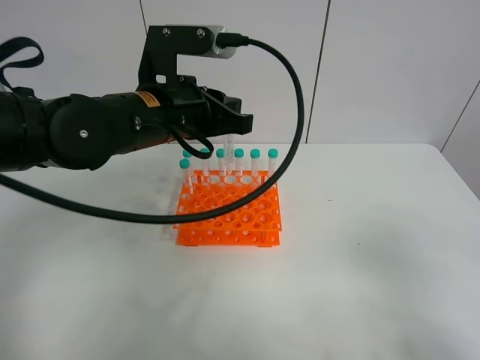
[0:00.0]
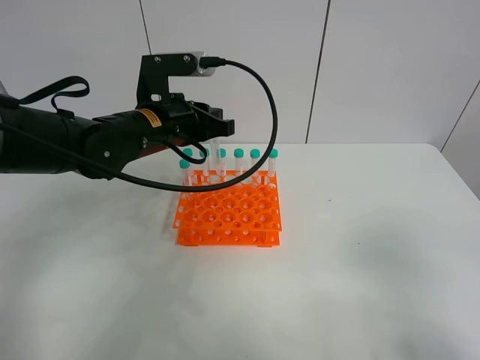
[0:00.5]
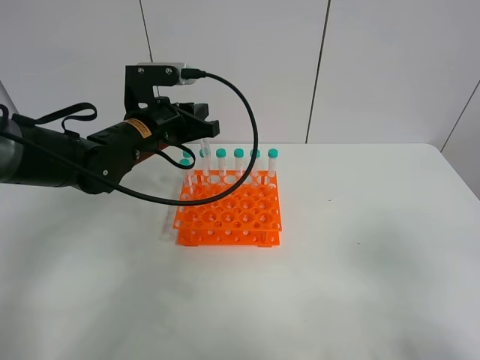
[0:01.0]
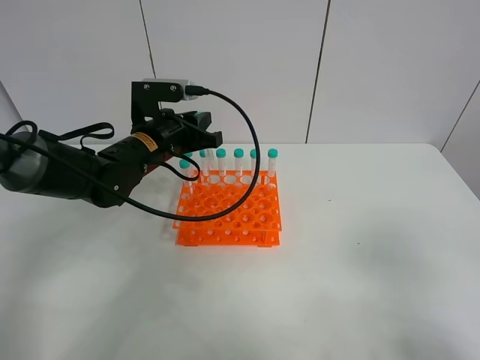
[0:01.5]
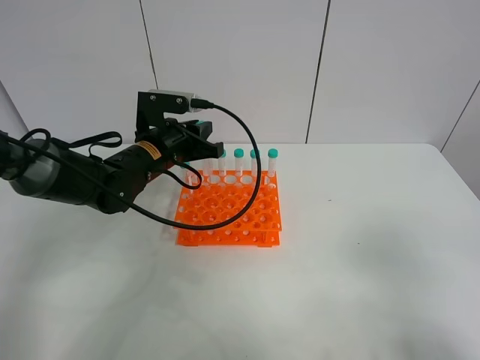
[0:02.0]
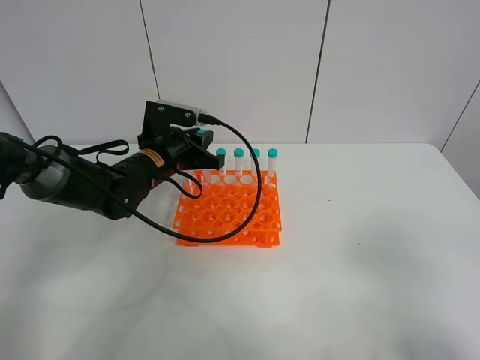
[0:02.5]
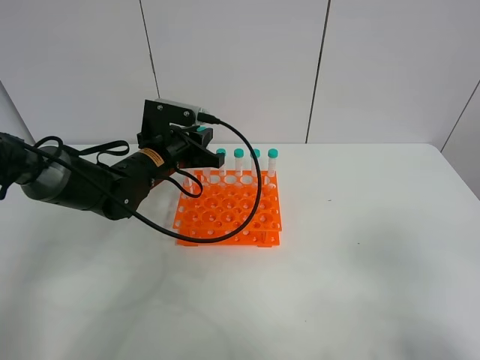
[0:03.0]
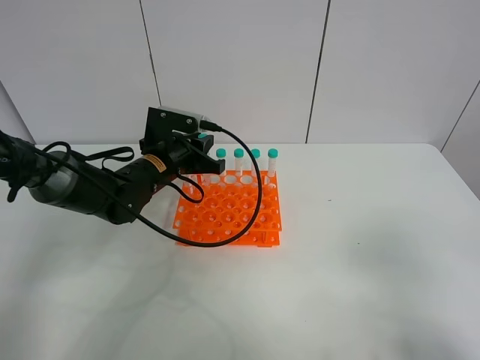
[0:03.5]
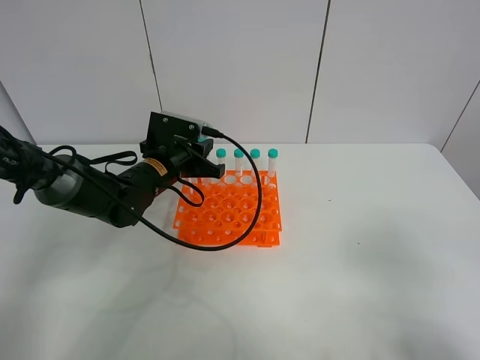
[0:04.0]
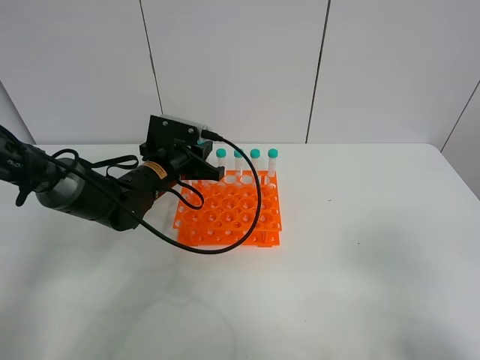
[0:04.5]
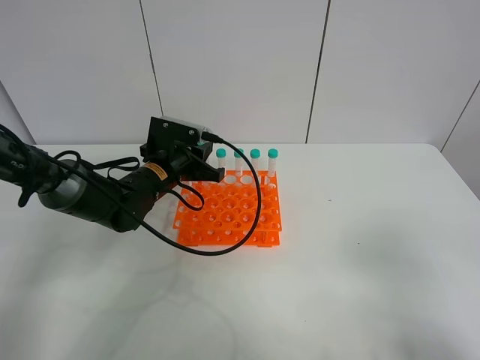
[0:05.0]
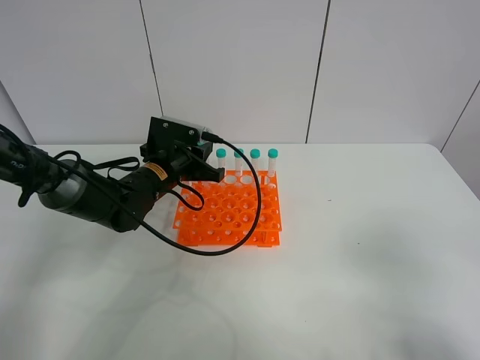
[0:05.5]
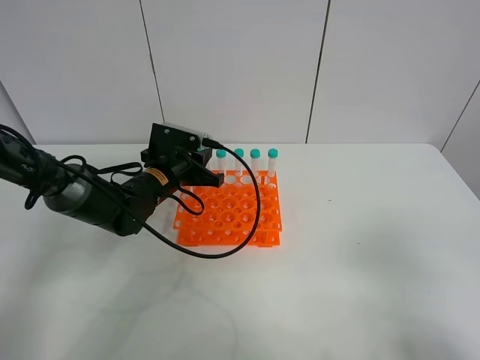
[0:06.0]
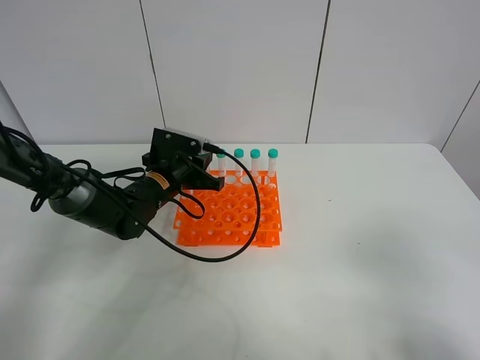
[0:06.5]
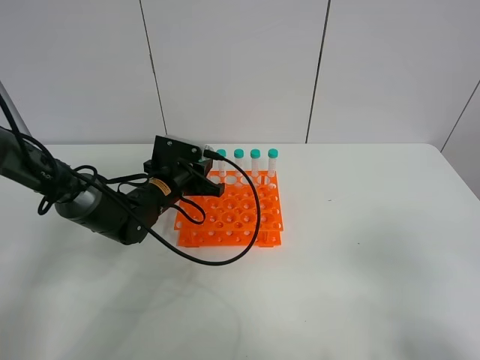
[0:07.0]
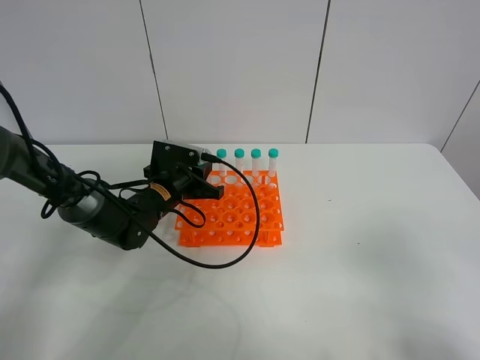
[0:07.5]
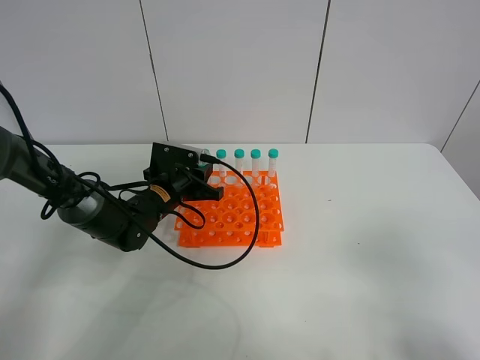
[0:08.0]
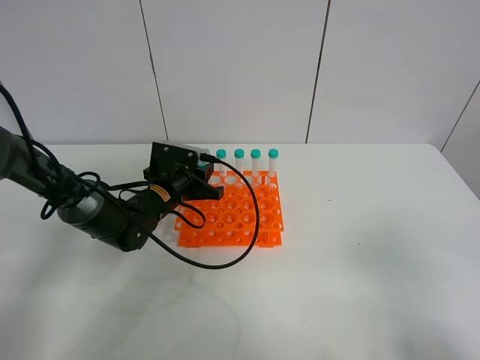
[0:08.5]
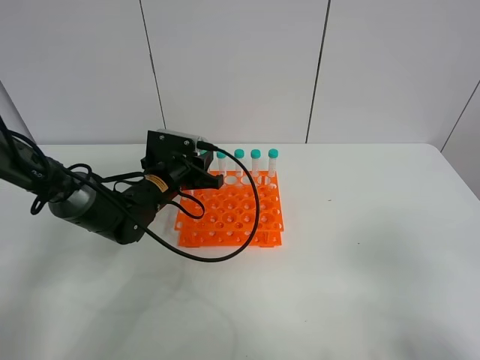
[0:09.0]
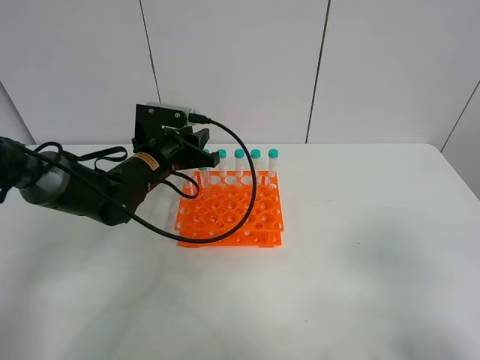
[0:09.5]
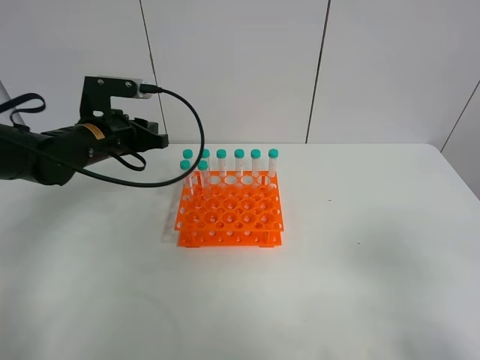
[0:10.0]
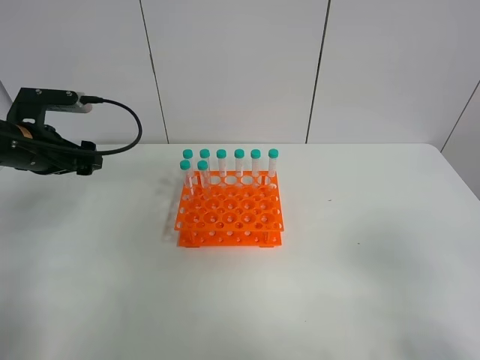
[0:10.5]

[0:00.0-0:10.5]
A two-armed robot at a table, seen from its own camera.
Task of the whole recording: Put the test tube on the table back onto the test tube rack.
Step, 0:00.0 to 0:08.5: Place the test tube on the test tube rack with the left gripper.
0:00.0 to 0:02.0: The left gripper goes roughly 10 cm downward and forward.
0:02.0 to 0:04.0: The grippers stay close to where they were, moving slightly.
0:04.0 to 0:08.5: The grippers stay close to where they were, moving slightly.
0:08.5 to 0:10.5: The left gripper moves to the left and upward, about 20 cm, and opens up.

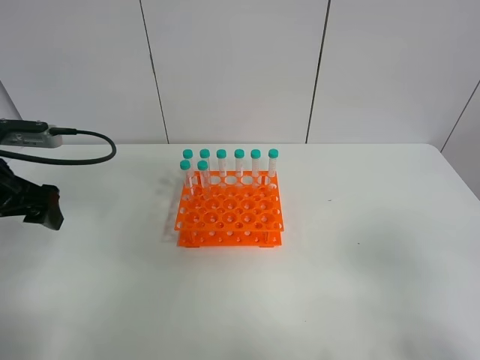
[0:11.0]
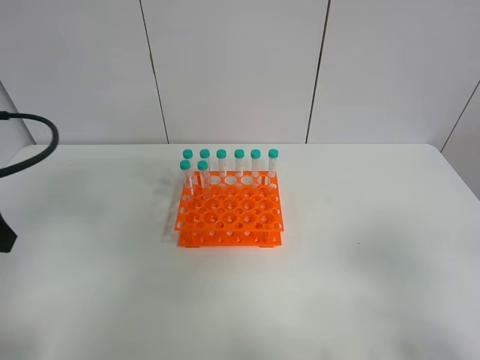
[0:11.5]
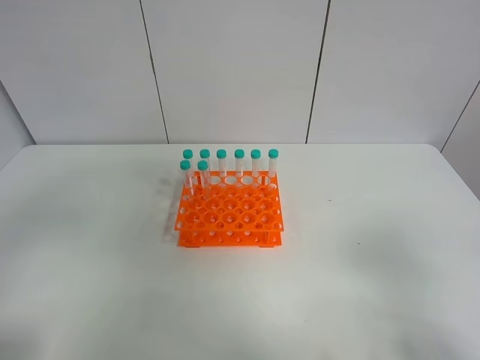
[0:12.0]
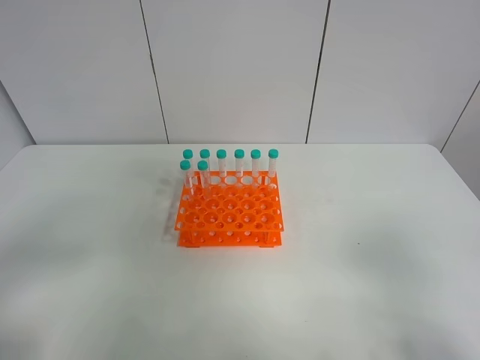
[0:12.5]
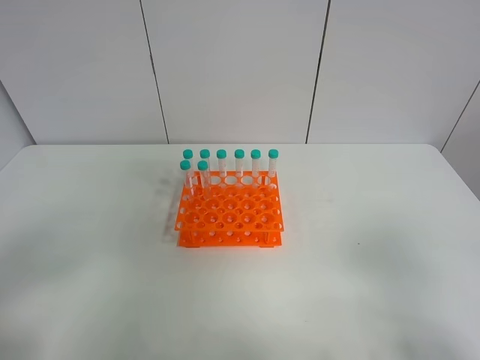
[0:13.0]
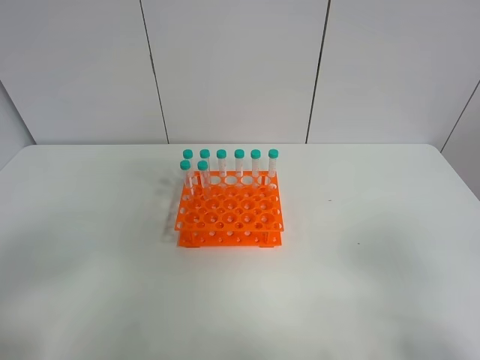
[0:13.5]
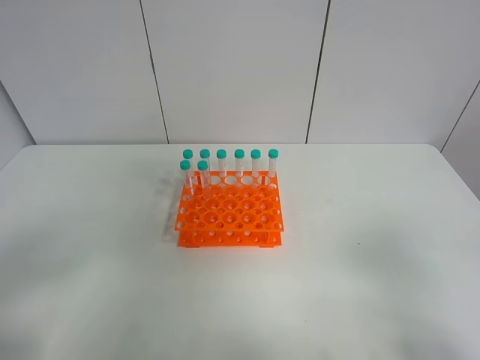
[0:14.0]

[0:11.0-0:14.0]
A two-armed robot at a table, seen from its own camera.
Task of the whole recording: Put the test tube on the table back onto the test tube rack.
0:11.0 to 0:12.5: The left gripper travels backward by approximately 20 cm.

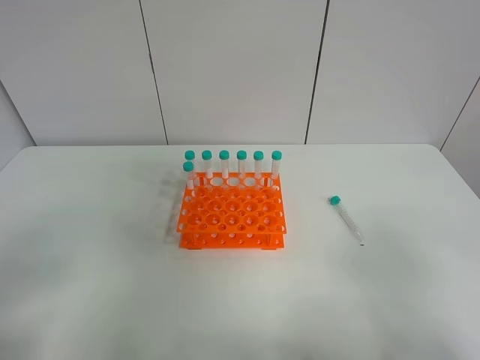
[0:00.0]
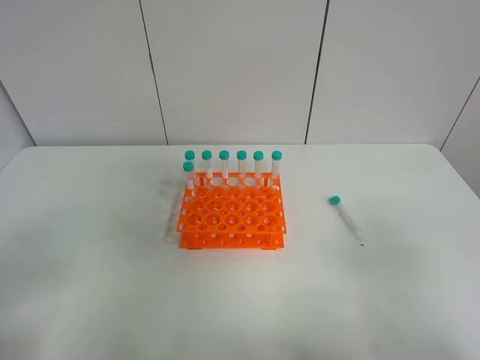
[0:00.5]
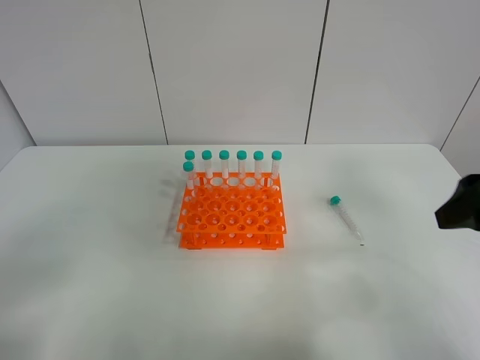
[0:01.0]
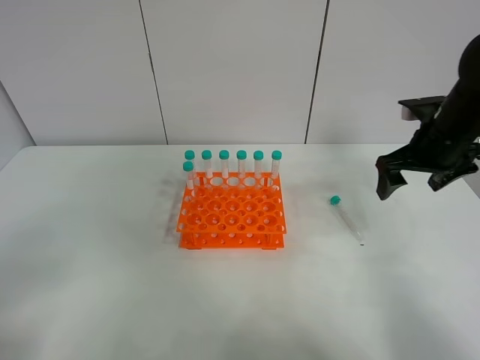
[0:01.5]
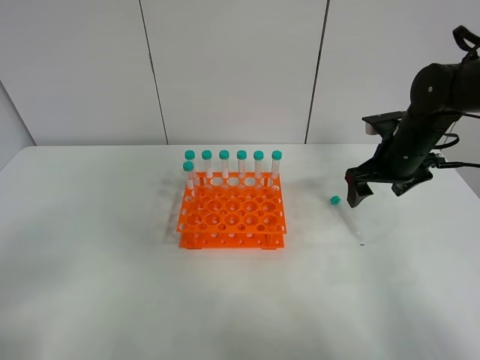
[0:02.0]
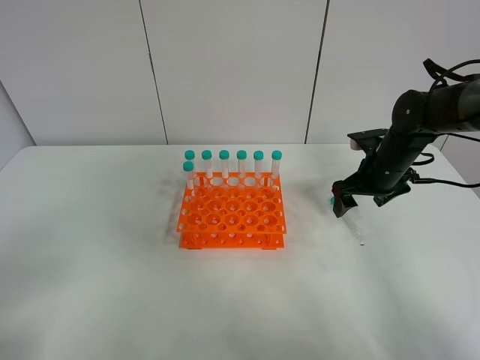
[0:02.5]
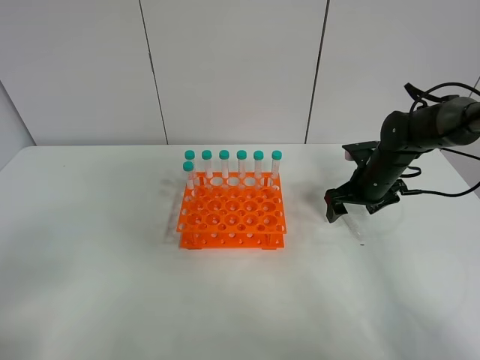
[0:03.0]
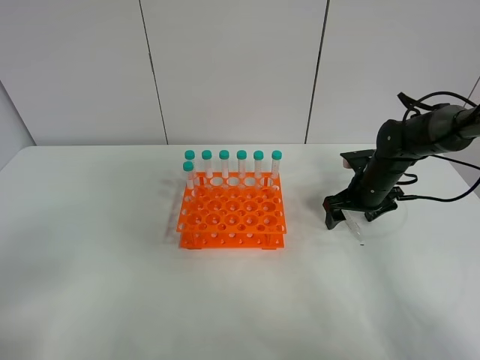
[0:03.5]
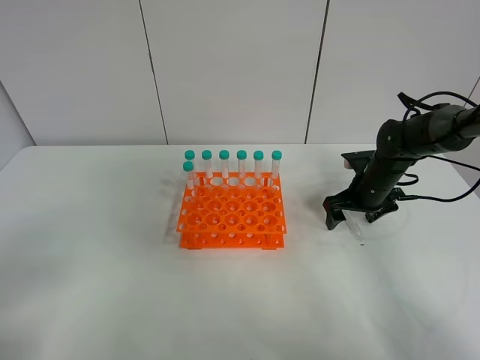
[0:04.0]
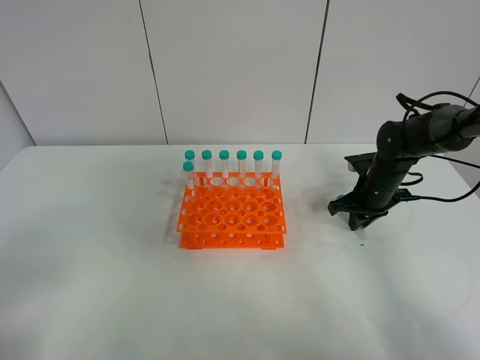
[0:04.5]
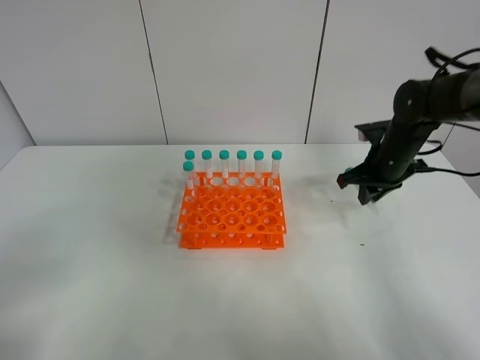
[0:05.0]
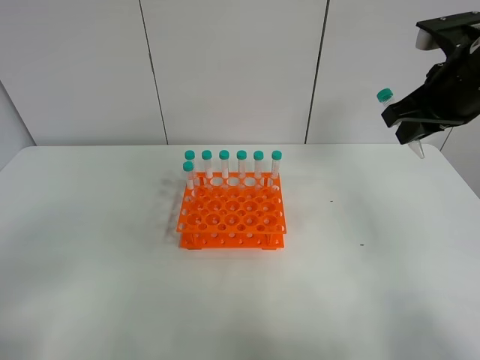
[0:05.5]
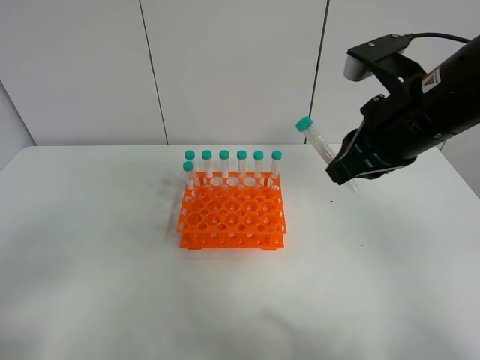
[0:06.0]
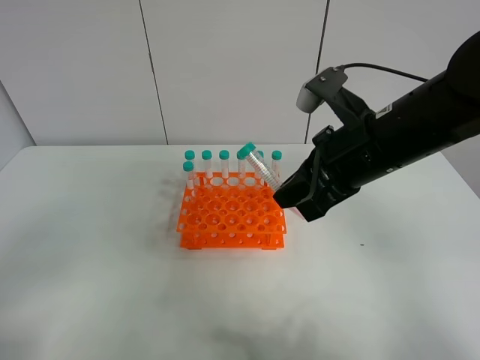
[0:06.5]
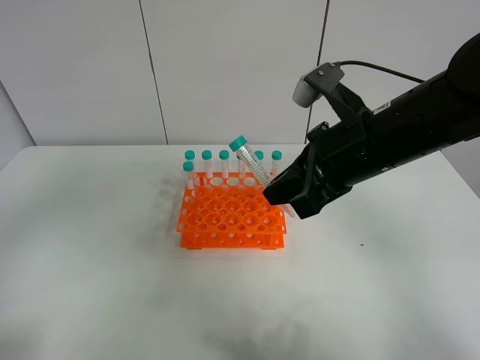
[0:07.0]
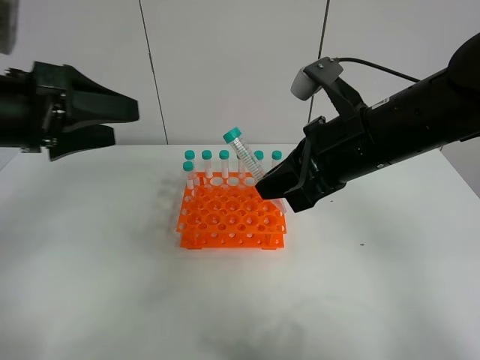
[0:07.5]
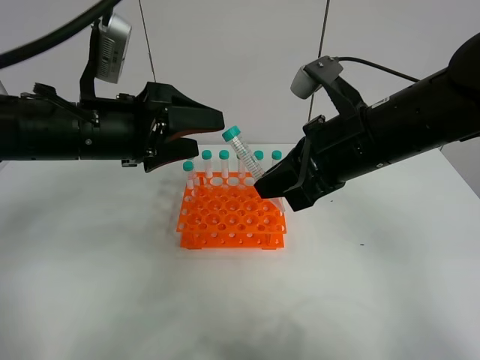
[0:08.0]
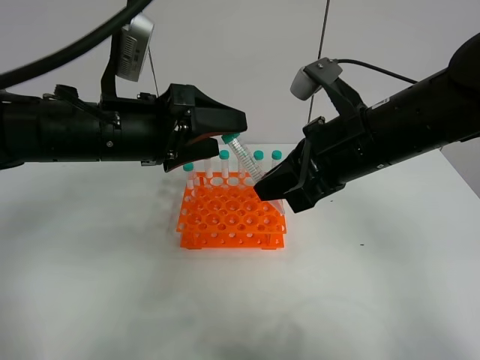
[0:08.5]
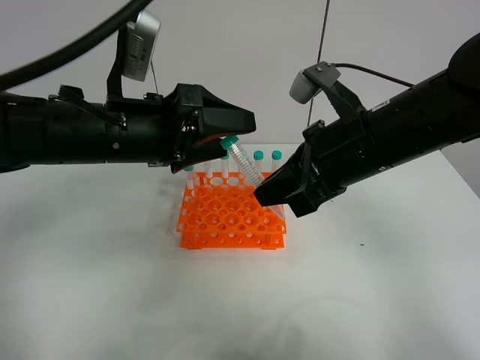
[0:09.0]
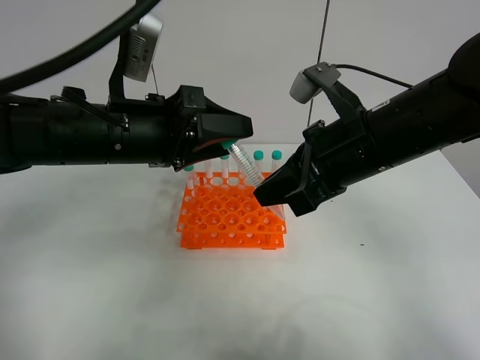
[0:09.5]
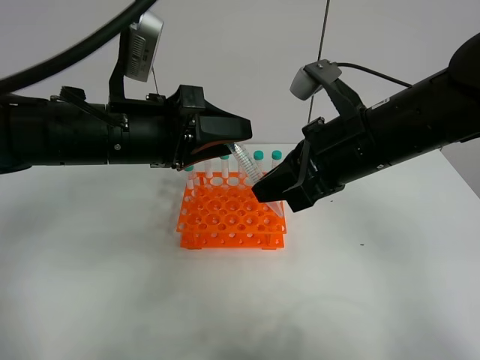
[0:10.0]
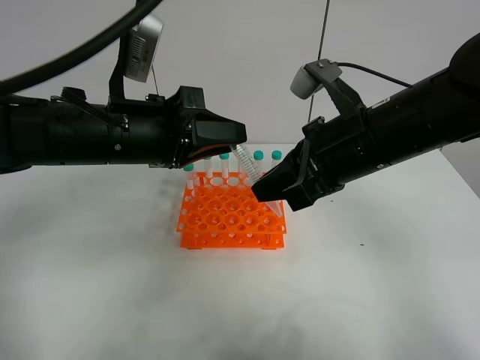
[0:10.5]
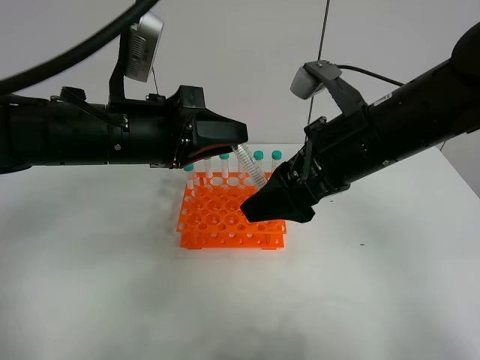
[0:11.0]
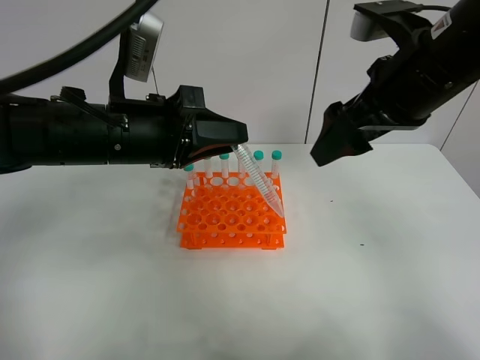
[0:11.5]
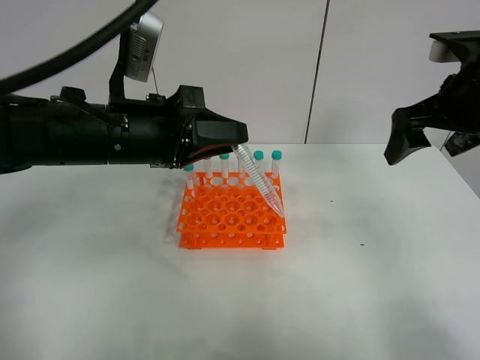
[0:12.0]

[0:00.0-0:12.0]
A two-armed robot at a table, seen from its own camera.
Task of the whole recording: Put the test tube on the table back onto the test tube rack.
Step, 0:00.0 to 0:04.5: Pick up the test tube with the right gripper.
Step, 0:05.0 to 0:11.0: Move the test tube from the right gripper to the left gripper.
0:00.0 to 0:02.0: The right gripper is displaced forward by roughly 35 cm.
0:02.0 to 0:04.0: The right gripper goes roughly 10 cm downward.
0:04.0 to 0:06.0: The right gripper goes some 25 cm upward and backward, and closes.
0:06.0 to 0:08.0: The left gripper is displaced forward and to the right by about 30 cm.
0:08.0 to 0:10.0: The left gripper closes up.
0:10.0 to 0:12.0: The right gripper is displaced to the right by approximately 15 cm, and opens up, while the left gripper closes up.
